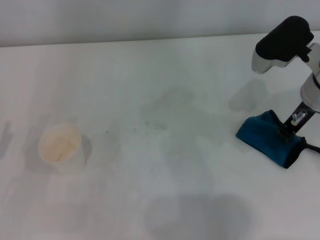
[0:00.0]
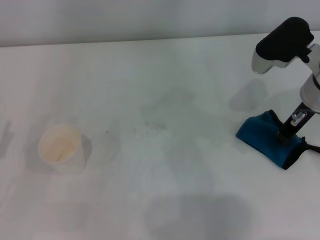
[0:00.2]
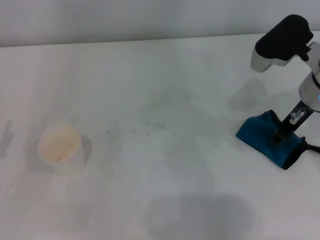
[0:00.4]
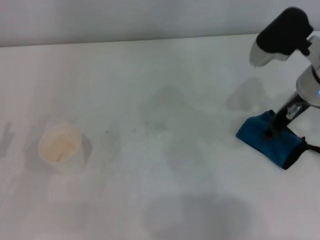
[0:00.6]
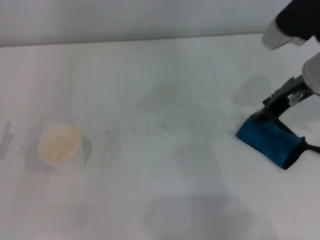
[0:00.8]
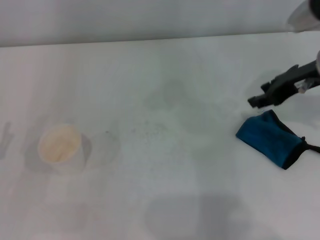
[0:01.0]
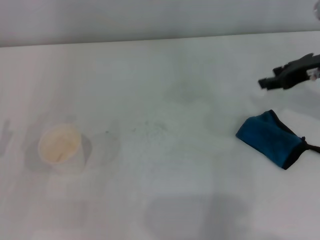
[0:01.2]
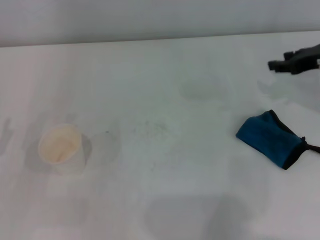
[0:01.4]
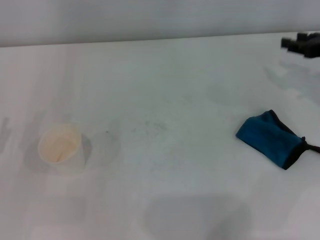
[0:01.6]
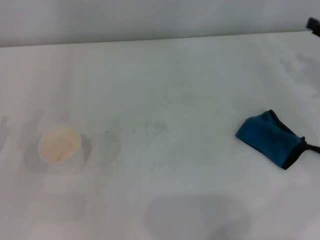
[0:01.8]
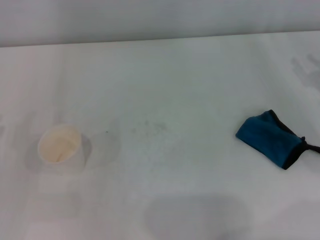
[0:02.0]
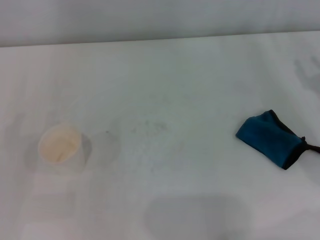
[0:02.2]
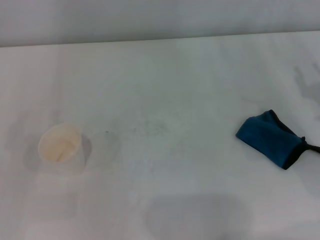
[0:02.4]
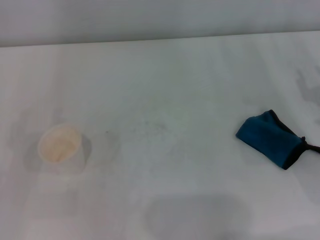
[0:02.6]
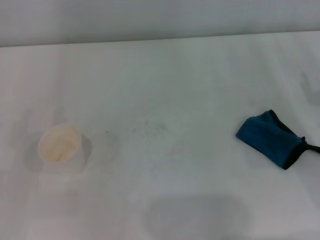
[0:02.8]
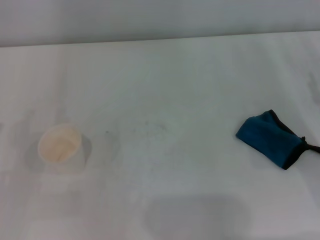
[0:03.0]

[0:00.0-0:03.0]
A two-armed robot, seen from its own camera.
0:00.0 to 0:01.6: The right gripper is displaced to the right by some 10 cm, and opens up.
0:01.6 to 0:03.0: The right gripper travels backward and downward by approximately 10 cm.

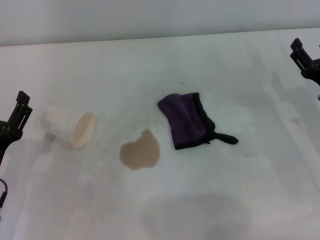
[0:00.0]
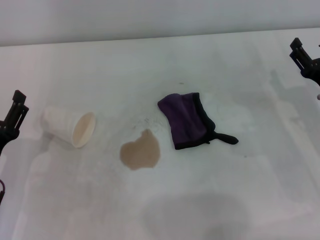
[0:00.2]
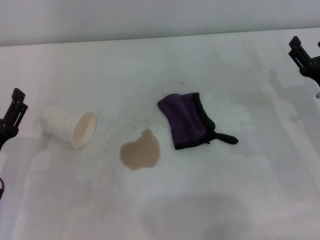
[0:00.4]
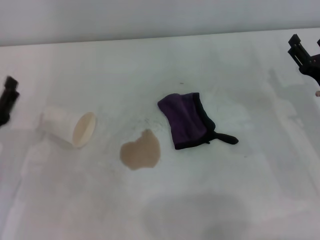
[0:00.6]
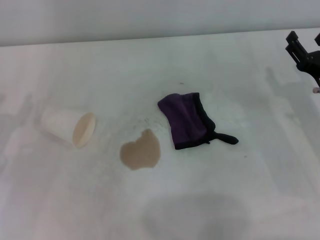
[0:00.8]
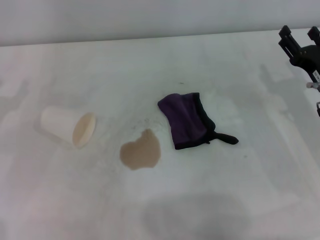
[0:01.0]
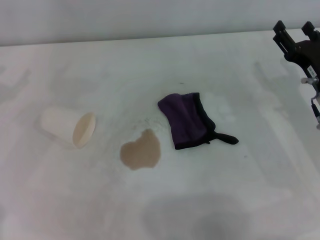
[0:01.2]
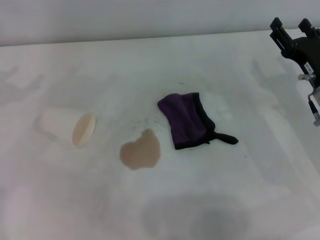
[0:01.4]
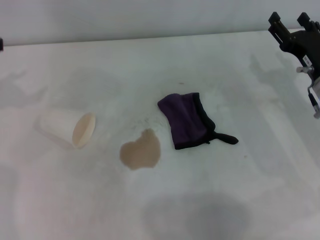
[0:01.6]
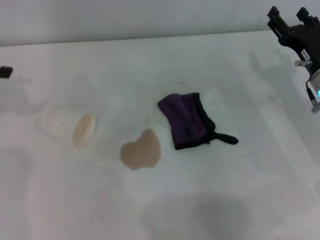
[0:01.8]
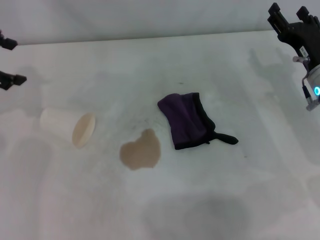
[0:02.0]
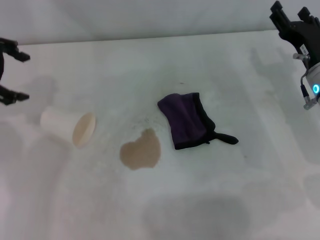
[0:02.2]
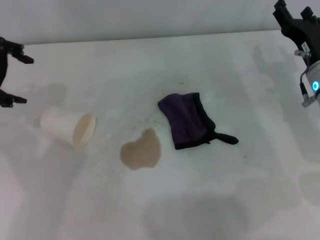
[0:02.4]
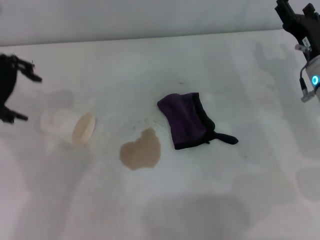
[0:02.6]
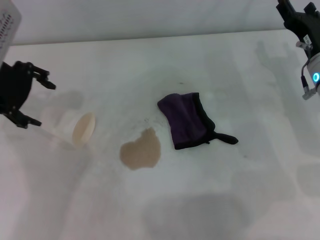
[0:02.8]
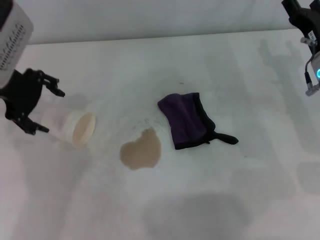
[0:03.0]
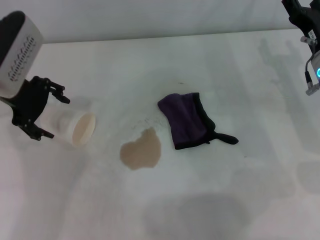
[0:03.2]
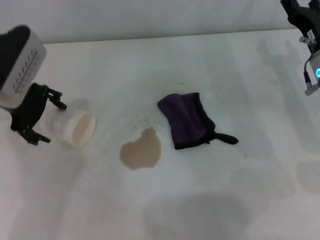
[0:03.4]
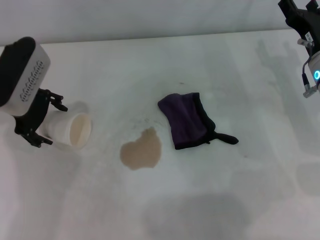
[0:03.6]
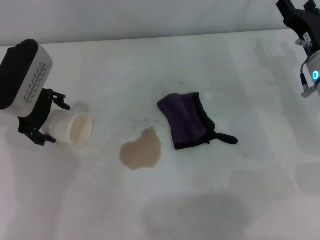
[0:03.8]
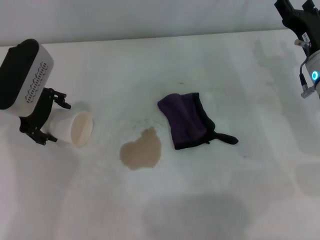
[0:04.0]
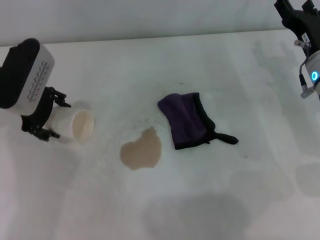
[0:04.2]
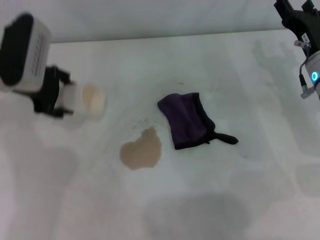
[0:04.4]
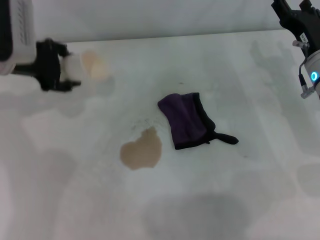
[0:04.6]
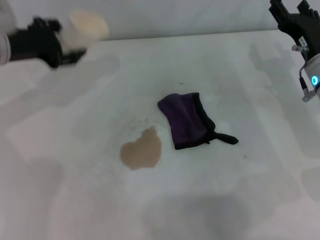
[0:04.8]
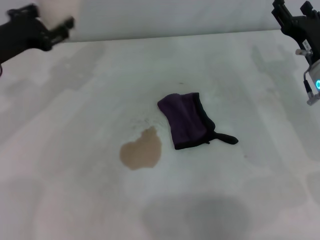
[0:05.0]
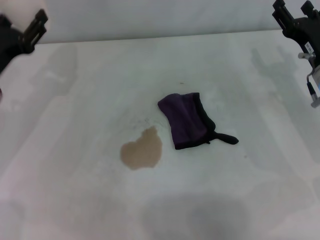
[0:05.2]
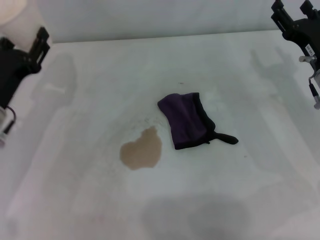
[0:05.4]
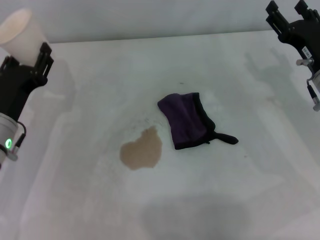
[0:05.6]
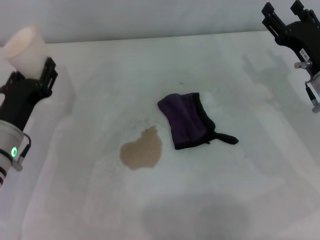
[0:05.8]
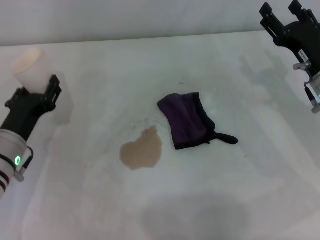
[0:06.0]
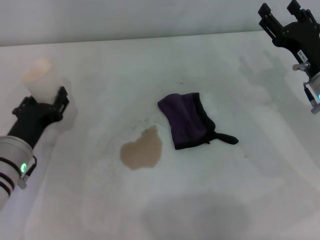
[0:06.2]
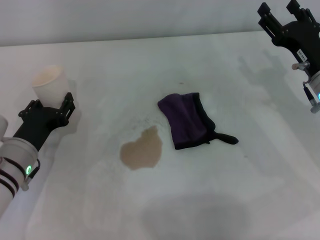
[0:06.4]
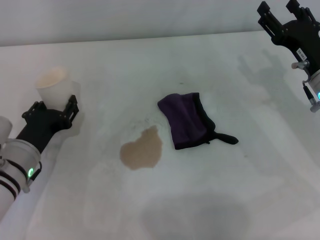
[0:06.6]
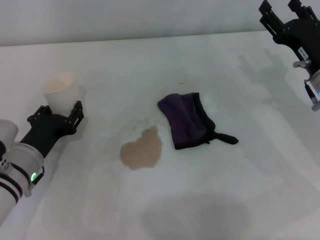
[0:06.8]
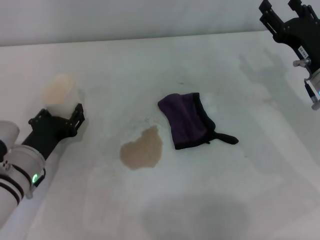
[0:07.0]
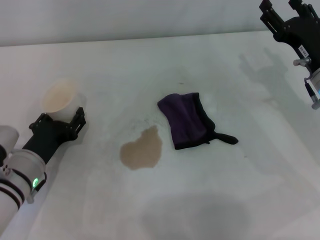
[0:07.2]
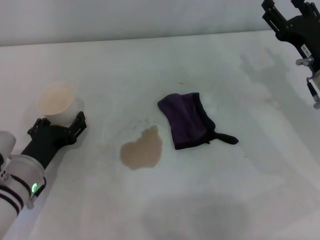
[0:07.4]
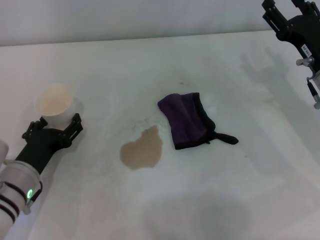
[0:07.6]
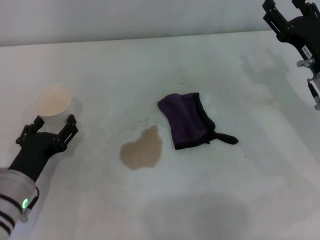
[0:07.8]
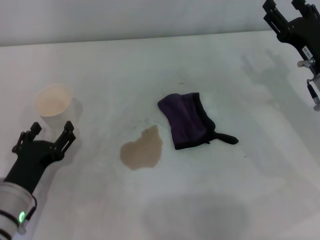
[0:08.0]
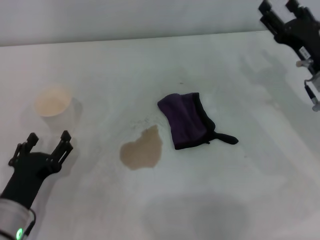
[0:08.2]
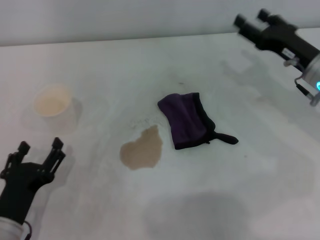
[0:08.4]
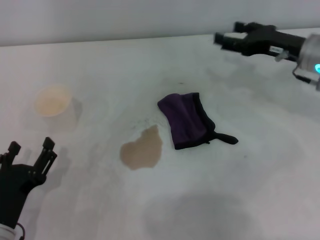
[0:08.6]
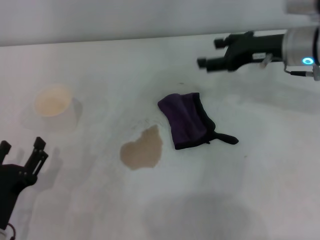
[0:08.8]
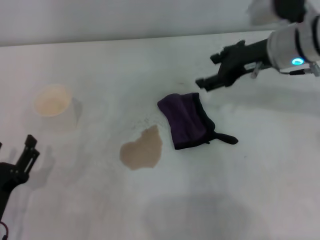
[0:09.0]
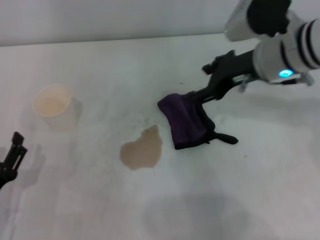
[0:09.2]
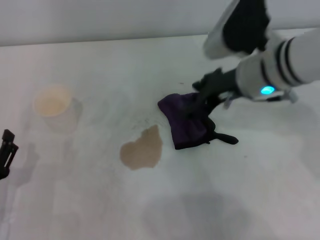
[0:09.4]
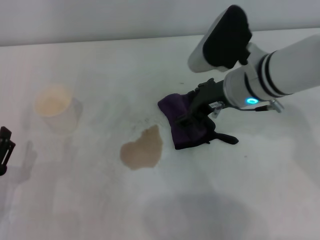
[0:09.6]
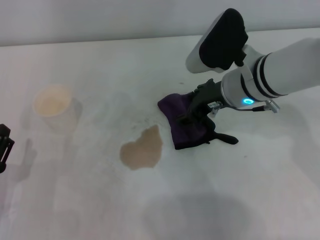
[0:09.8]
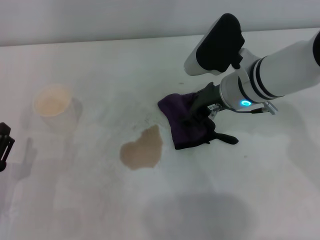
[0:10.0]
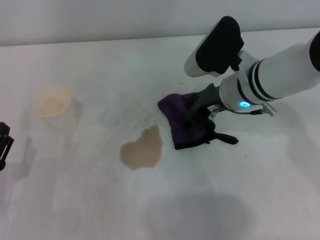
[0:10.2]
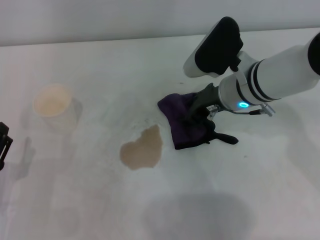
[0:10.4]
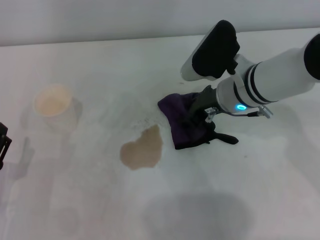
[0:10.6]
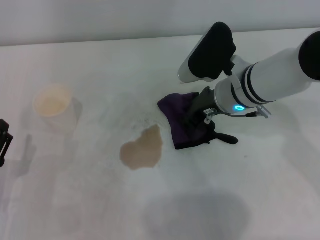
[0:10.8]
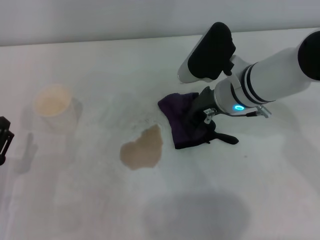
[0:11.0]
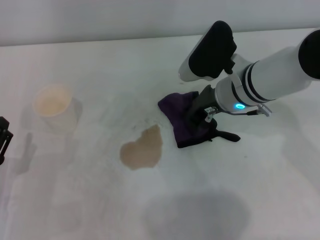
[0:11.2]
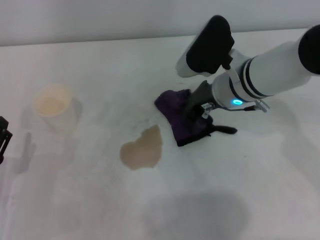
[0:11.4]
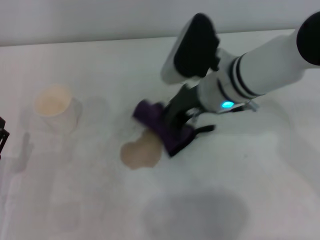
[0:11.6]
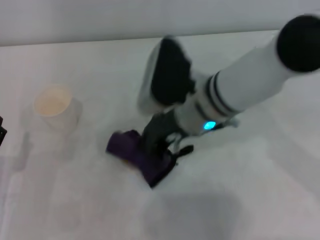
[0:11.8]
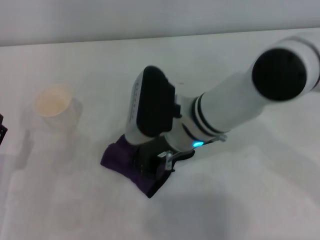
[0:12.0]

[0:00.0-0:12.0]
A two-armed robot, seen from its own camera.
Step, 0:00.0 to 0:03.6: Grasp the paper cup with the left gripper.
Step, 0:03.8 to 0:08.0: Stand the paper cup upright with the left gripper.
Step, 0:08.2 to 0:11.2: Grasp the rag with the right gripper.
0:00.0 to 0:01.6: The left gripper shifts approximately 25 cm upward, forward and to the left. The right gripper moves approximately 5 cm.
0:01.6 to 0:03.0: The left gripper goes approximately 15 cm to the right.
0:03.0 to 0:04.4: The left gripper moves approximately 5 cm, and closes.
0:04.4 to 0:06.0: The left gripper heads downward and backward, covering roughly 15 cm, and closes up.
0:06.0 to 0:07.6: The left gripper opens.
0:07.6 to 0:09.0: The right gripper shifts roughly 10 cm upward, forward and to the left; the left gripper goes approximately 10 cm backward.
0:09.0 to 0:10.4: The right gripper moves to the left and downward, approximately 10 cm.
0:10.4 to 0:12.0: The right gripper shifts roughly 10 cm to the left, and closes up.

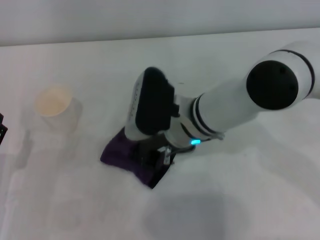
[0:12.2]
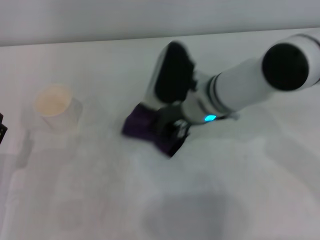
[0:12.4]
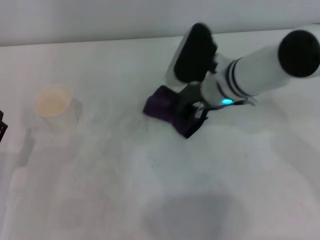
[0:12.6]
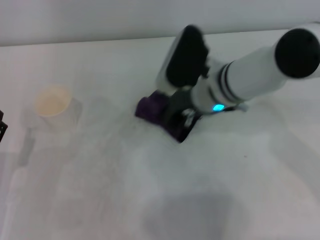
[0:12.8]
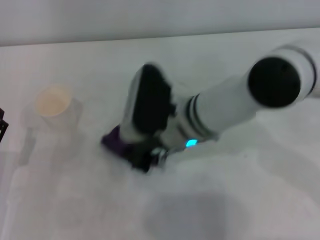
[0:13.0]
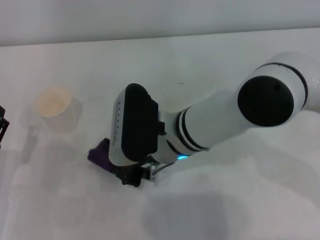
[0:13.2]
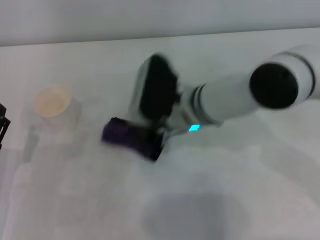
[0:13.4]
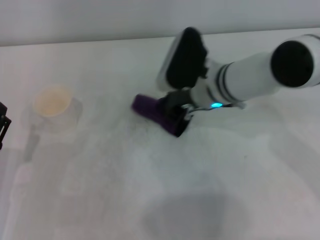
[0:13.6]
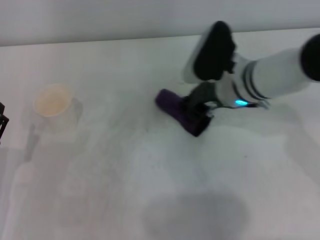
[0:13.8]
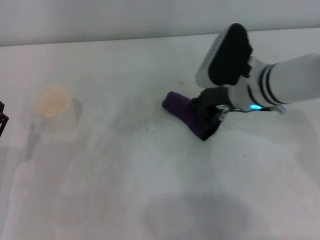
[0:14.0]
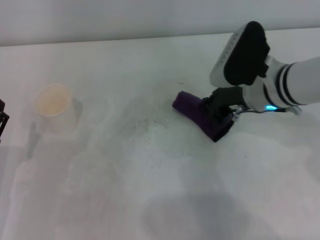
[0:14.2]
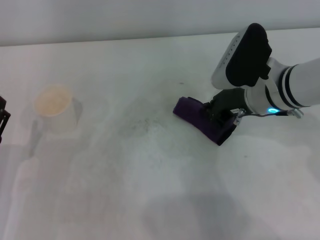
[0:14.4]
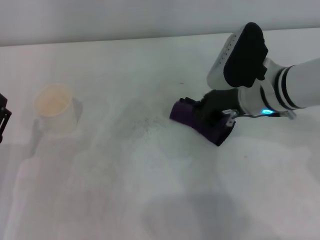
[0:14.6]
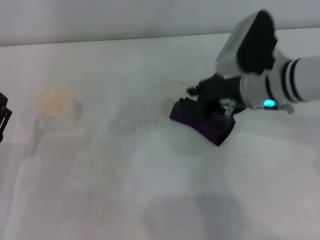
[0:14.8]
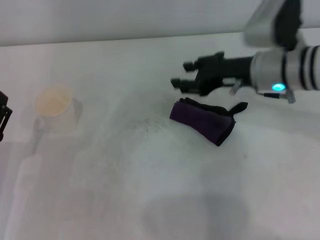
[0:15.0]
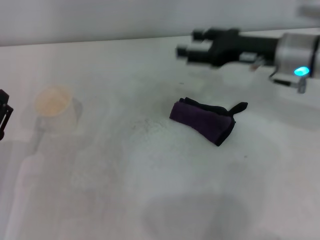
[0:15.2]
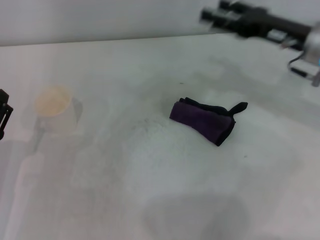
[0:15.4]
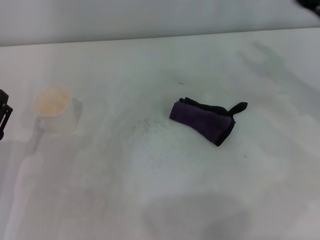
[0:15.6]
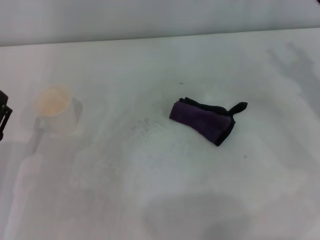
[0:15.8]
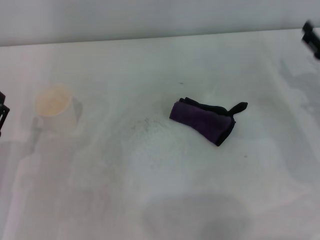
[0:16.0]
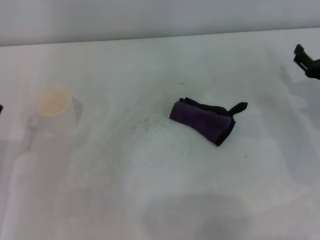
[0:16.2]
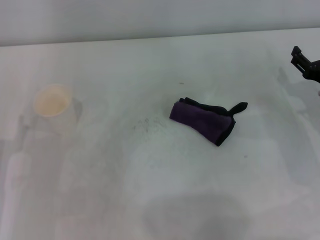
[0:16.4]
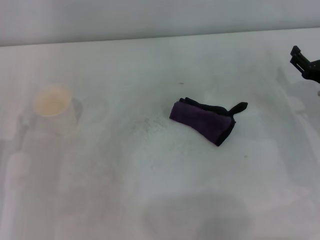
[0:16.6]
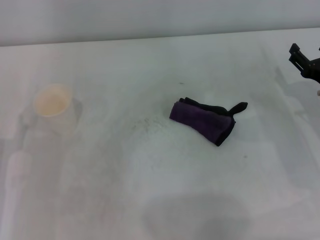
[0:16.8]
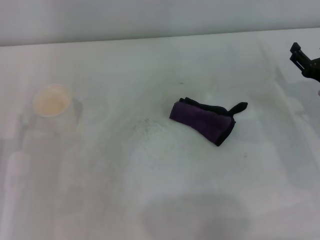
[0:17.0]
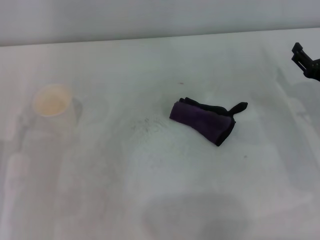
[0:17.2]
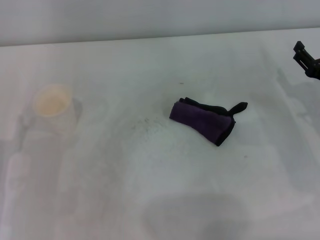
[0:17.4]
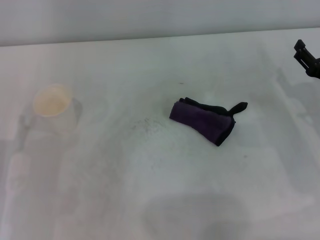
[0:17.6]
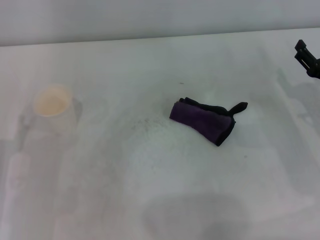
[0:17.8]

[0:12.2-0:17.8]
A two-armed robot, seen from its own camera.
Step, 0:12.2 to 0:13.8: Wipe the stains off the table with the right gripper.
Step, 0:14.2 to 0:14.6: Place the rag on the table with the right gripper.
0:12.2 to 0:13.6: The right gripper swings left and right, roughly 10 cm each way, with 2 reversals.
0:13.6 to 0:15.0: The right gripper is displaced to the right by approximately 10 cm.
0:15.0 to 0:16.4: The right gripper goes some 15 cm to the right and downward, and opens.
